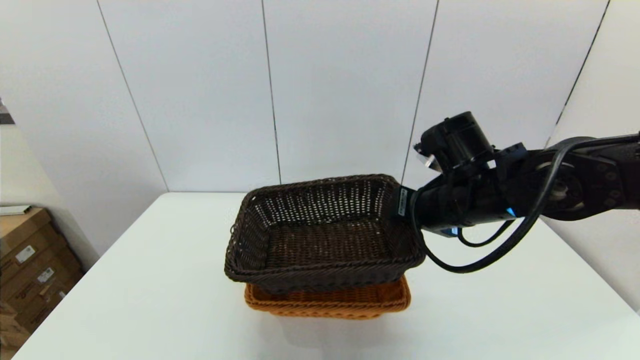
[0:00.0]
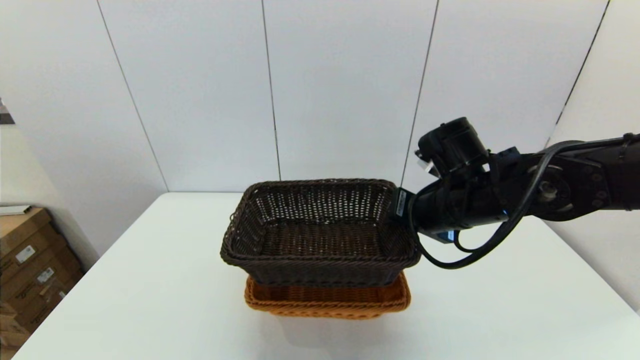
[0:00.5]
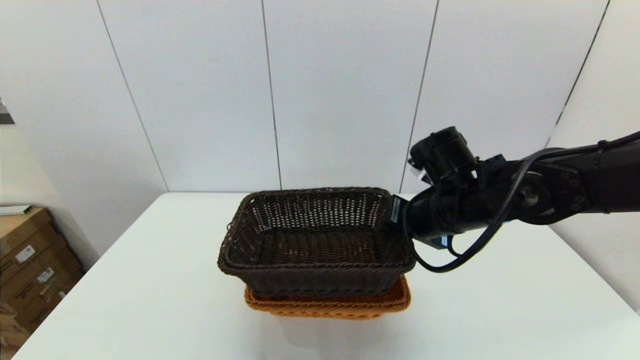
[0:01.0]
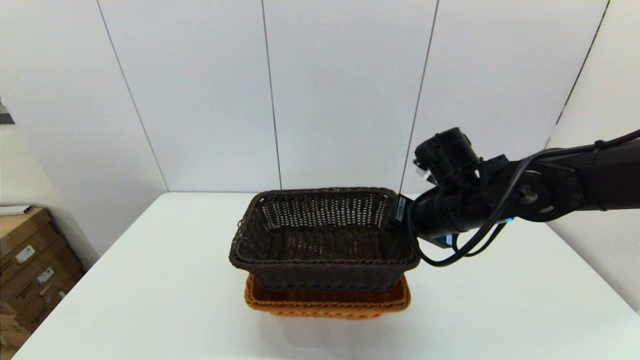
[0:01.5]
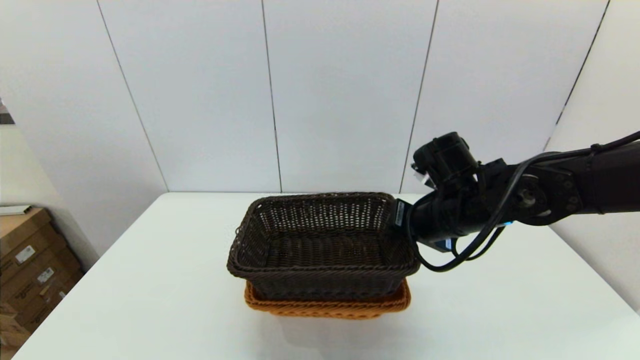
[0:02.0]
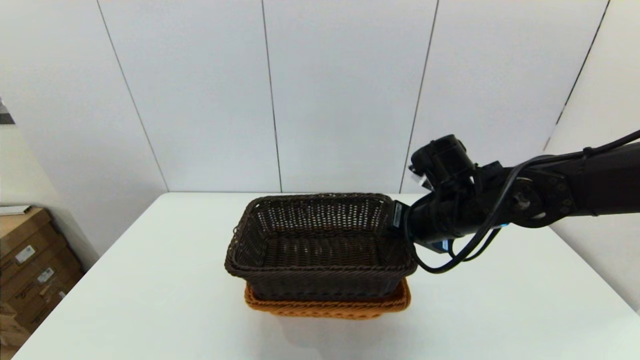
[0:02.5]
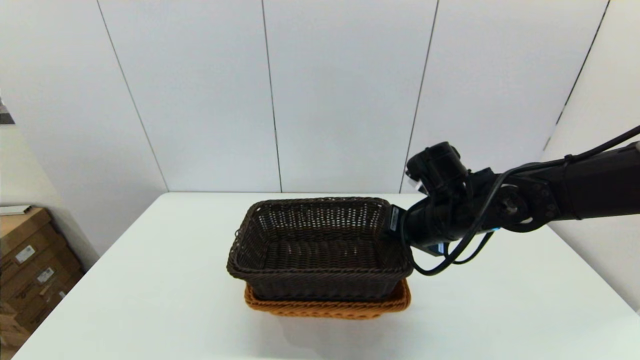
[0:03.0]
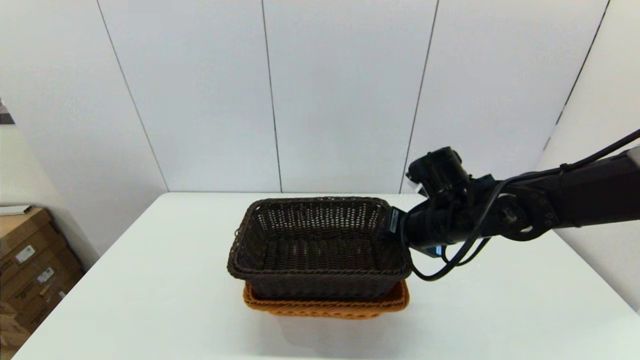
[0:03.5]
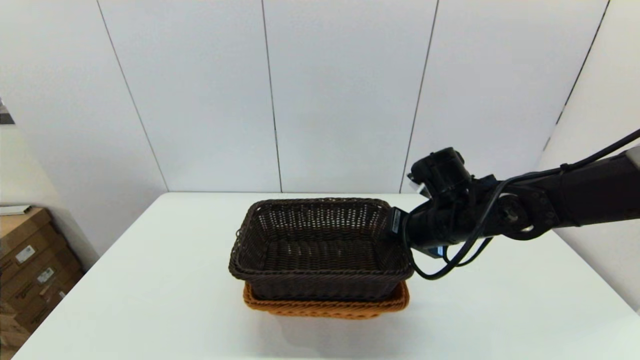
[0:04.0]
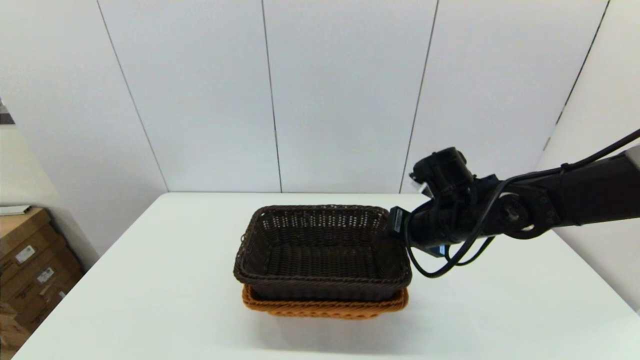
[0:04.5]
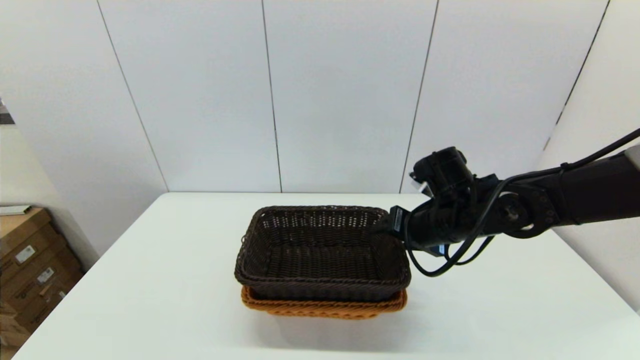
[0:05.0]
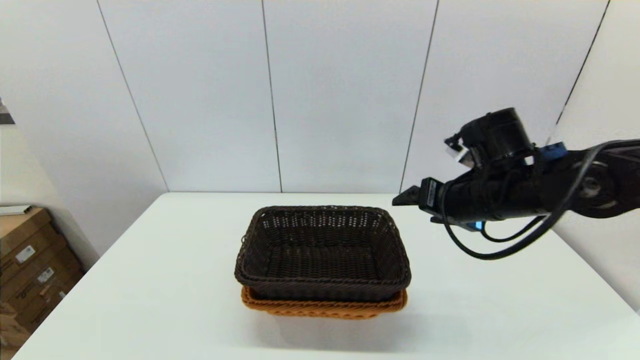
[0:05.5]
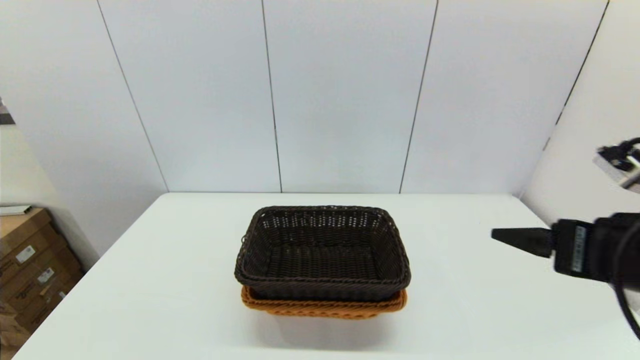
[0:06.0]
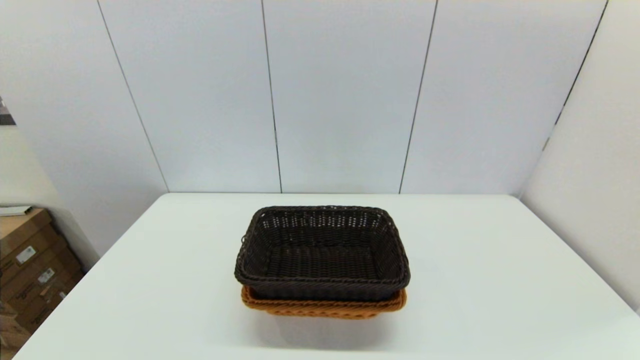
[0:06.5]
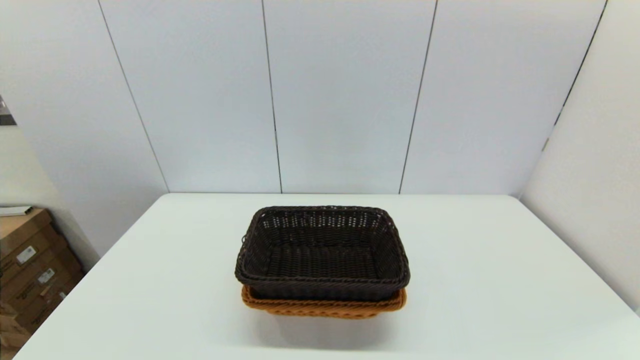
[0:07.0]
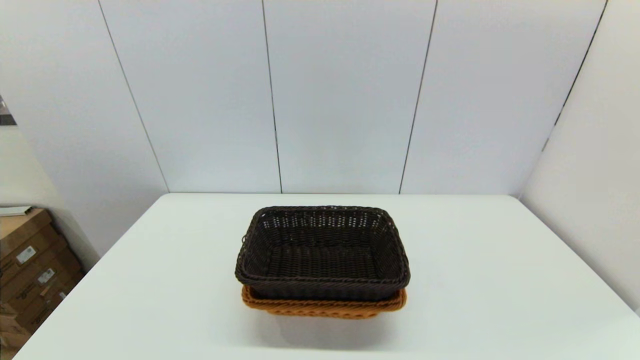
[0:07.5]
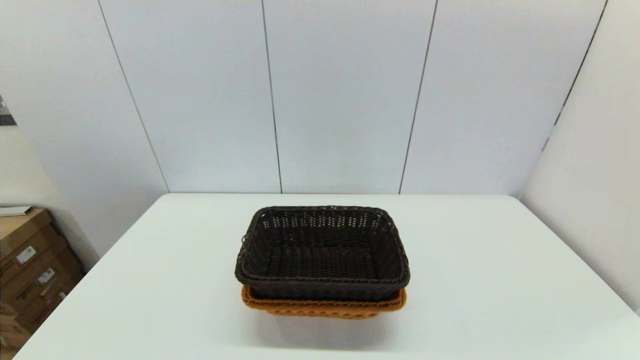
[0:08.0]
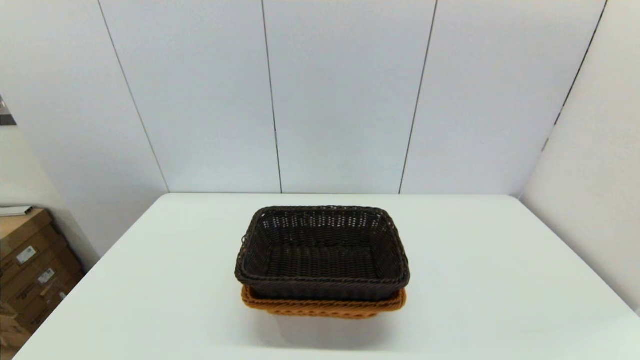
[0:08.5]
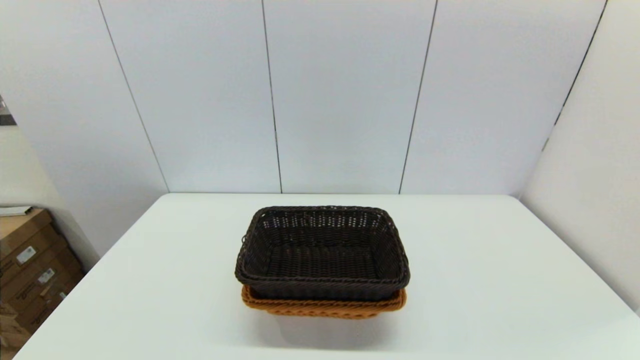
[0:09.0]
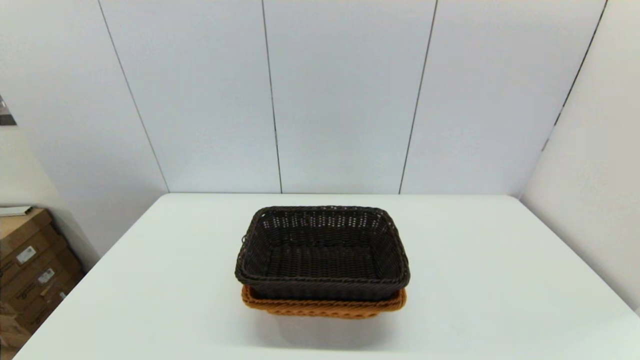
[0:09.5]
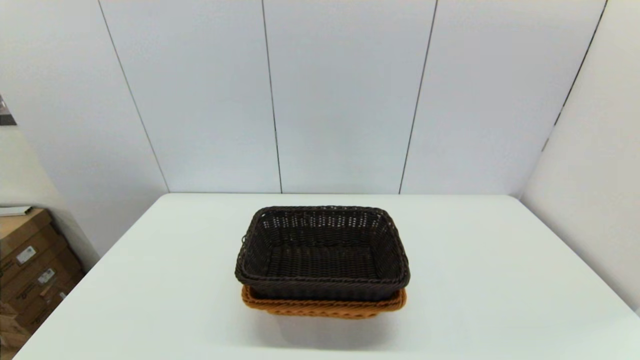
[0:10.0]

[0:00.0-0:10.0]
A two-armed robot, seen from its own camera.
Task of the whole recording: stack a basket on top of another basket.
Step, 0:00.0 to 0:05.0: Place the dark basket into the light color basket with the right gripper.
0:00.0 to 0:02.0: The grippers stay close to where they were, moving slightly.
0:02.0 to 0:04.0: The grippers move only a little.
0:04.0 to 0:06.0: The right gripper shifts roughly 20 cm backward, to the right and upward, and opens.
0:06.0 to 0:08.0: The right gripper travels backward and downward by about 20 cm.
